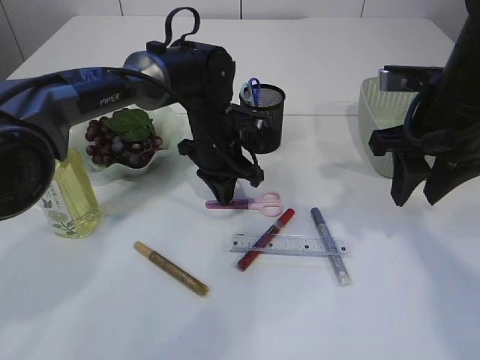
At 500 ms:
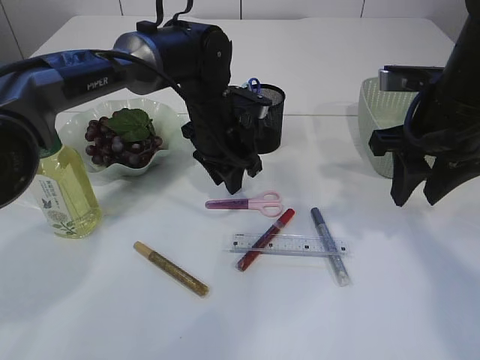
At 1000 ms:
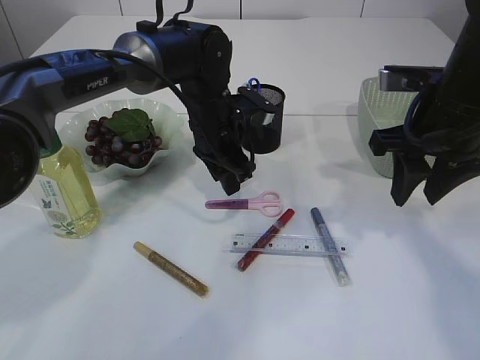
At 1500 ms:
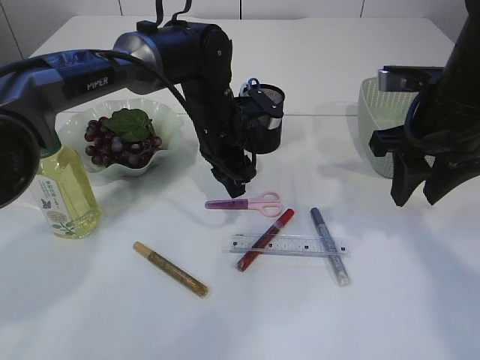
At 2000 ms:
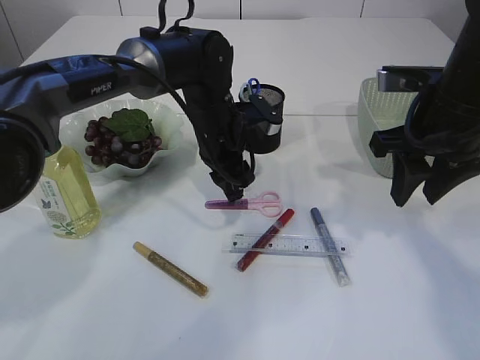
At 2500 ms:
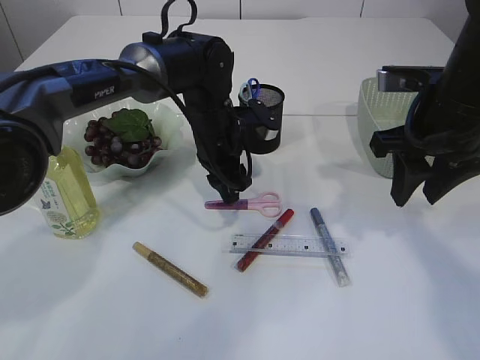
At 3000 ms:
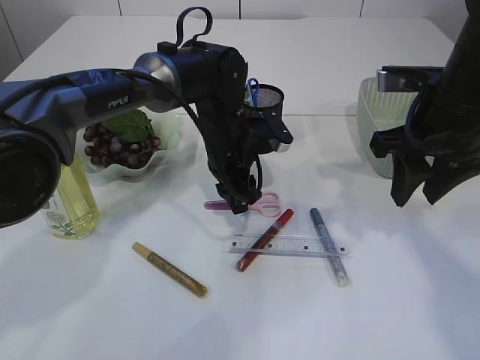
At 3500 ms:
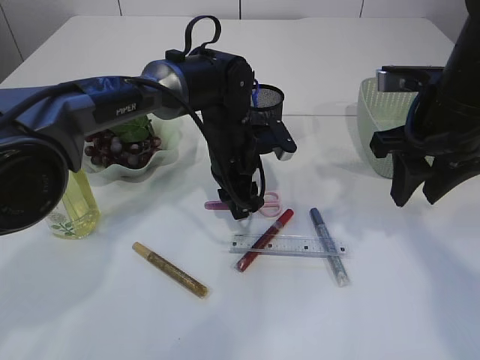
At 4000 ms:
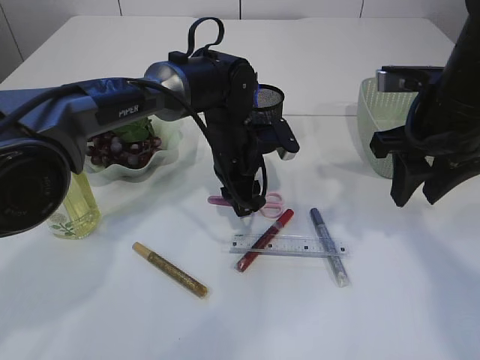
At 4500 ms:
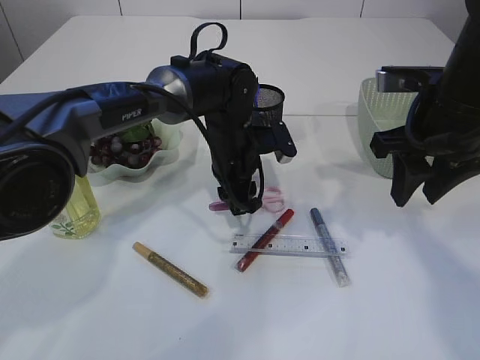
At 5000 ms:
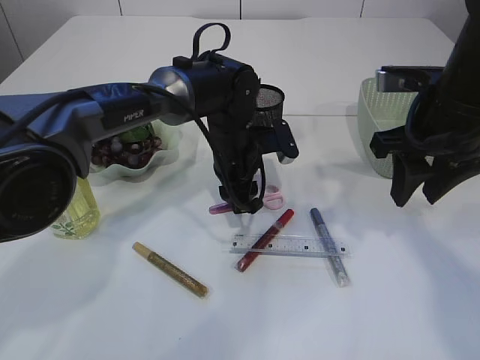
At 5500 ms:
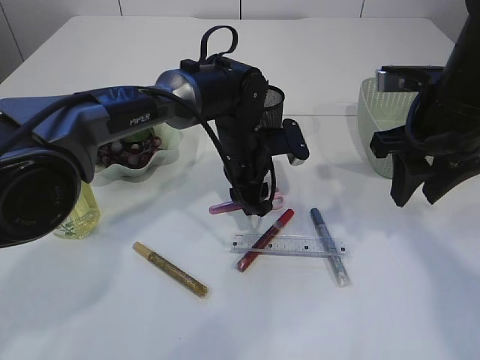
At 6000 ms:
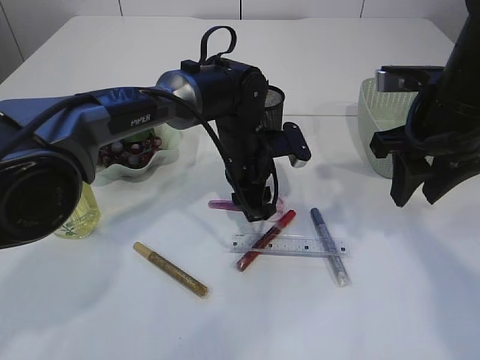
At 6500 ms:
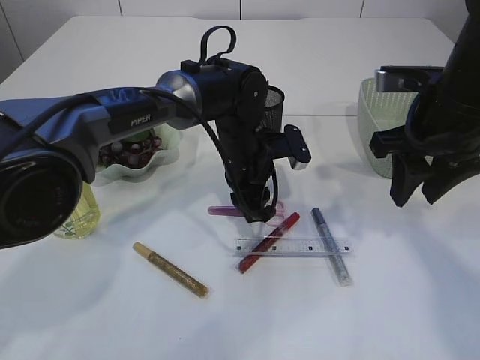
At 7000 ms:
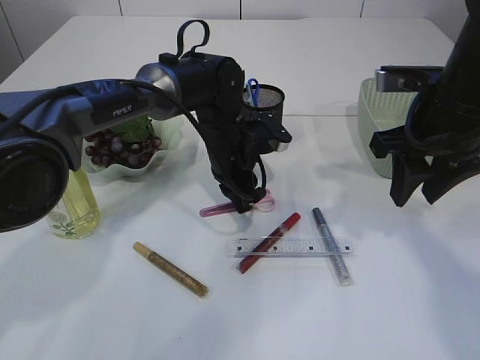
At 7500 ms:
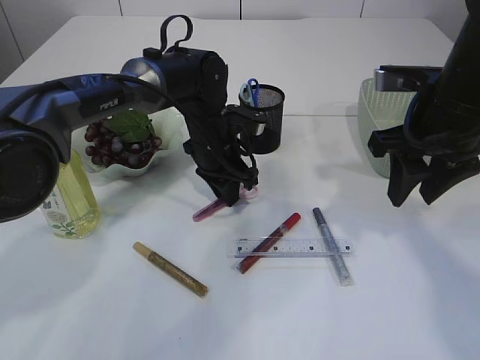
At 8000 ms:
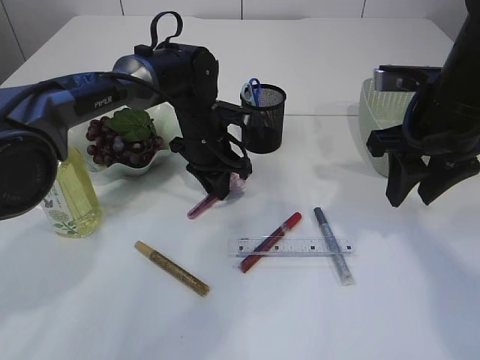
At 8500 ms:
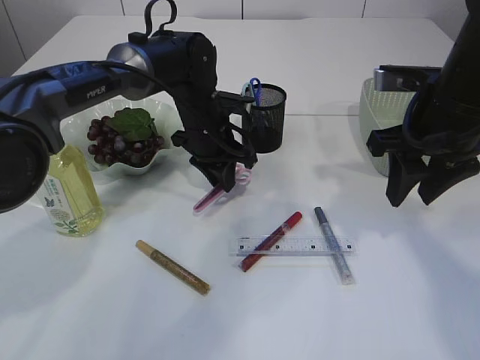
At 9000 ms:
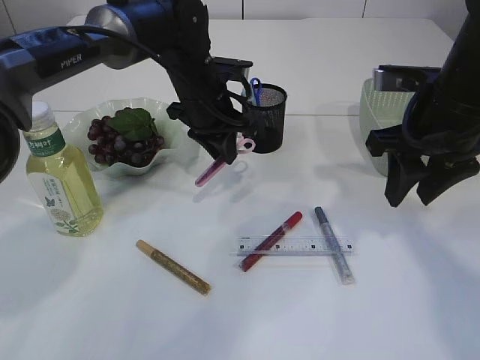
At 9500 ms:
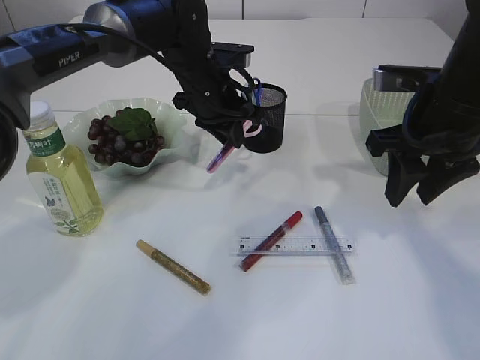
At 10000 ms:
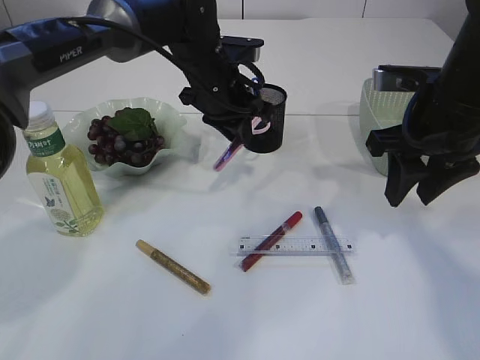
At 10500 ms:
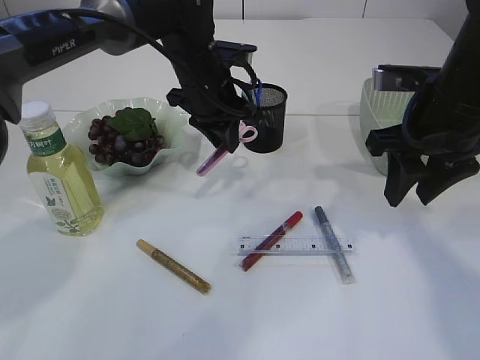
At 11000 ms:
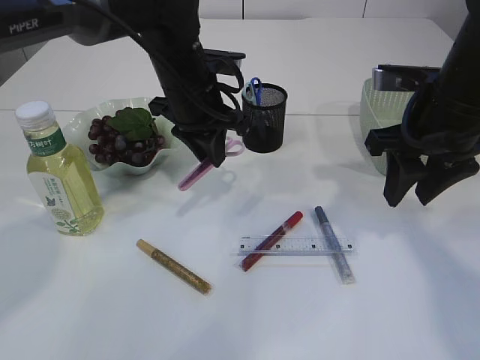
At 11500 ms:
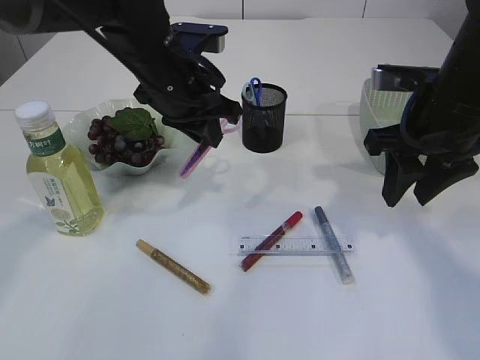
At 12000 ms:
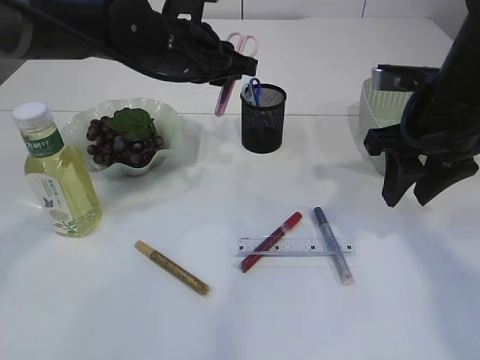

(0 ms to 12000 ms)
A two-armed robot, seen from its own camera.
Step, 0 ms - 8500 ms: pick up the pink scissors.
0 ms - 2000 ms: The left gripper opens its fingers.
2000 ms - 6000 ms: The grippers move only a little.
6000 ms - 8000 ms: The left gripper goes approximately 5 cm to the left, and closes up.
8000 ms - 10000 ms: The left gripper goes roughly 10 cm upward.
10000 ms - 12000 ms: The left gripper shifts by approximately 5 cm.

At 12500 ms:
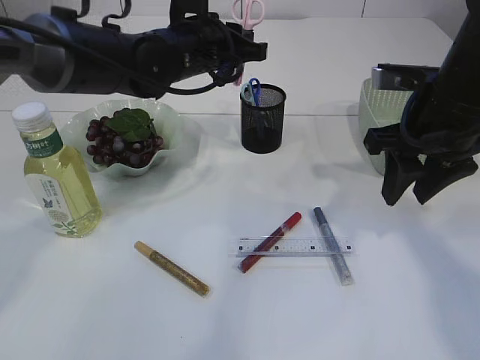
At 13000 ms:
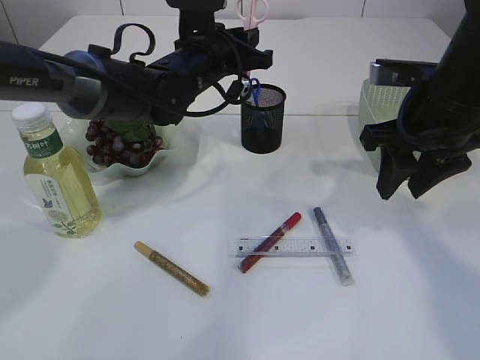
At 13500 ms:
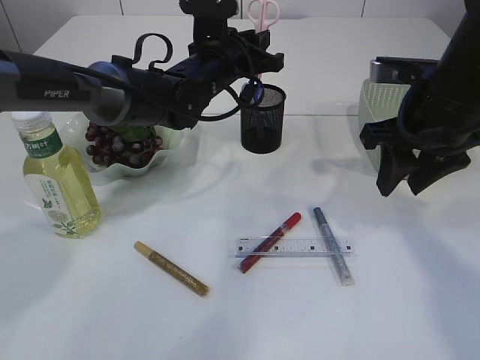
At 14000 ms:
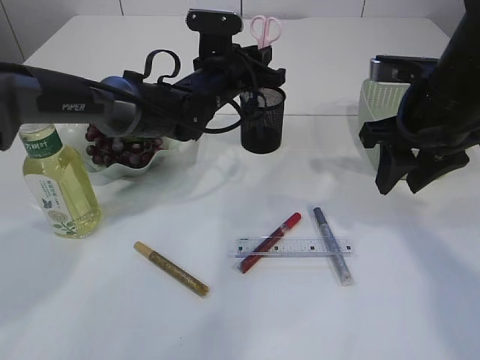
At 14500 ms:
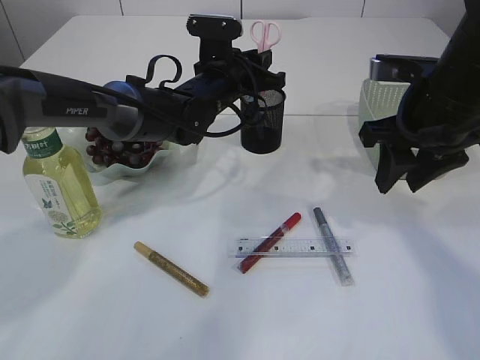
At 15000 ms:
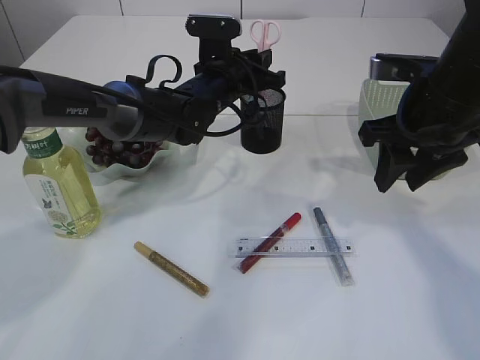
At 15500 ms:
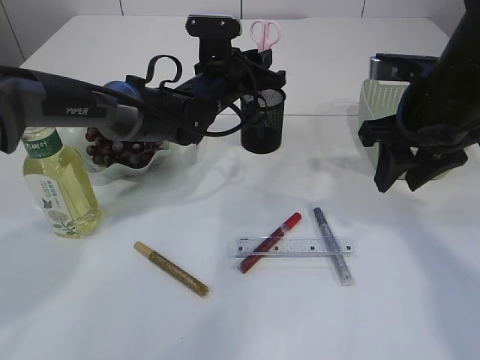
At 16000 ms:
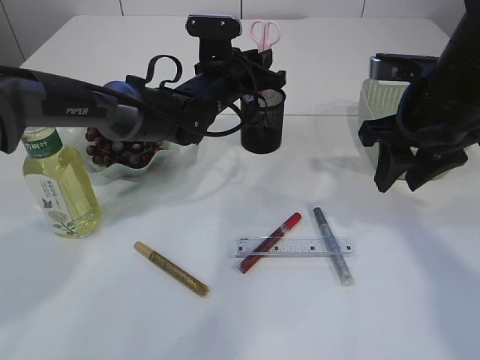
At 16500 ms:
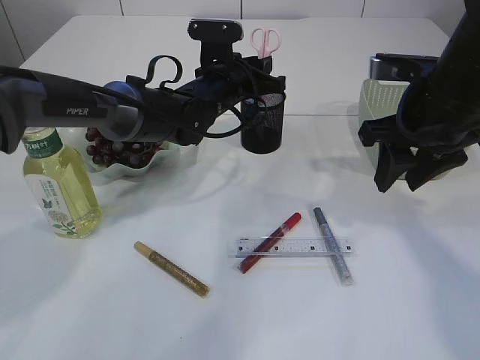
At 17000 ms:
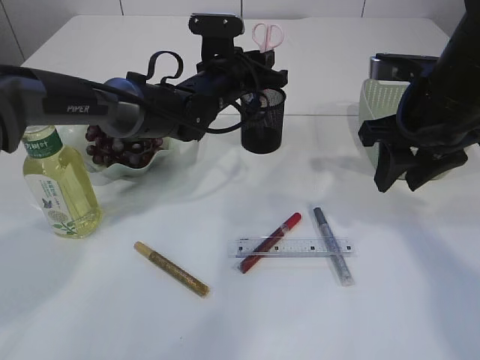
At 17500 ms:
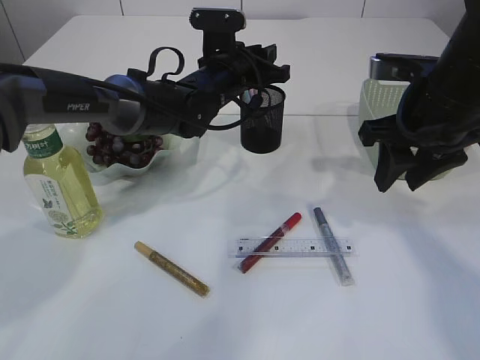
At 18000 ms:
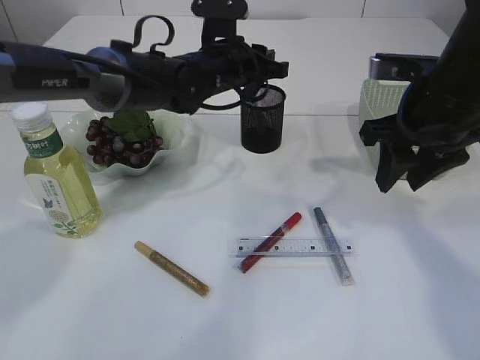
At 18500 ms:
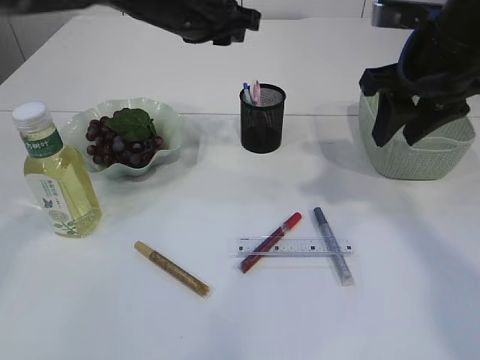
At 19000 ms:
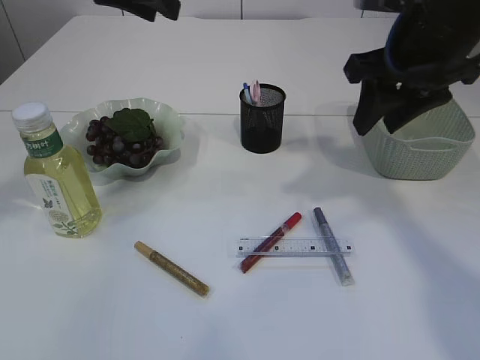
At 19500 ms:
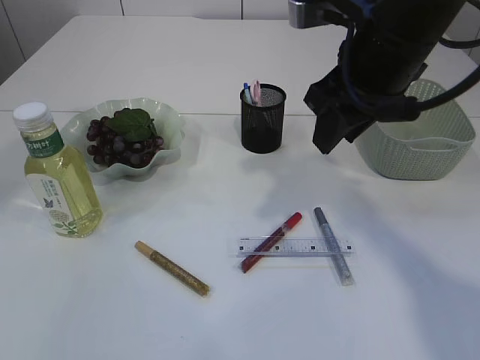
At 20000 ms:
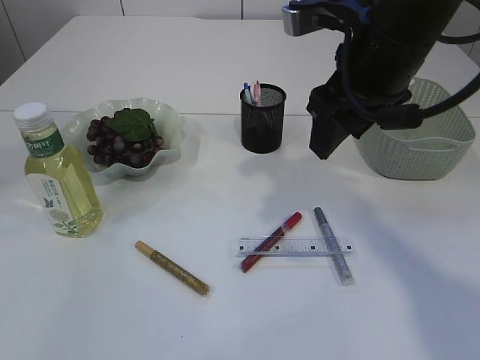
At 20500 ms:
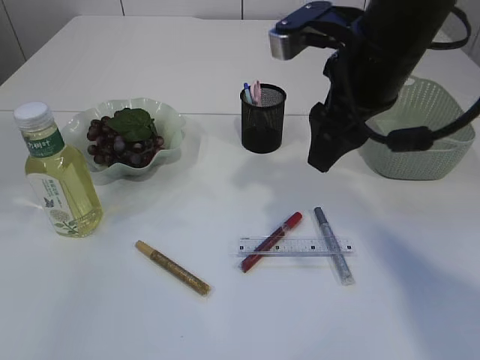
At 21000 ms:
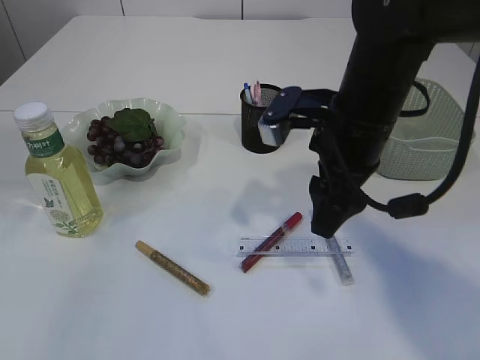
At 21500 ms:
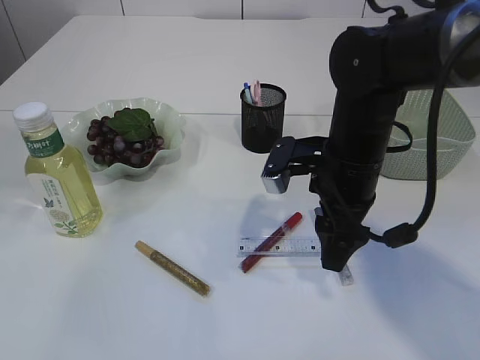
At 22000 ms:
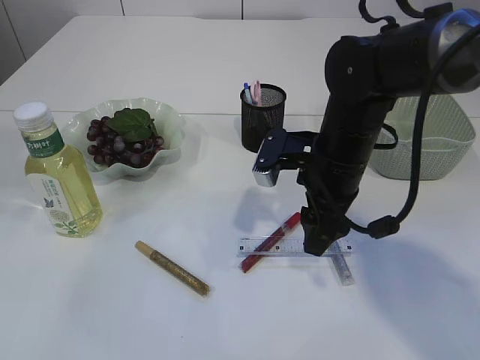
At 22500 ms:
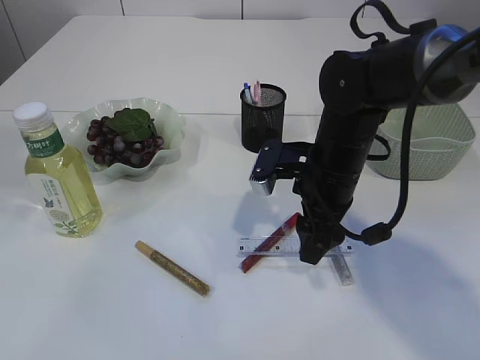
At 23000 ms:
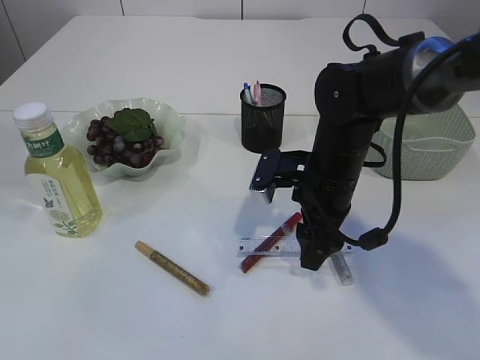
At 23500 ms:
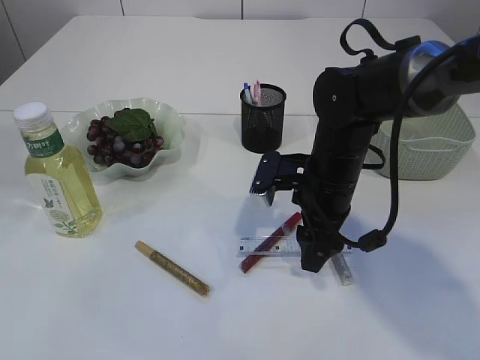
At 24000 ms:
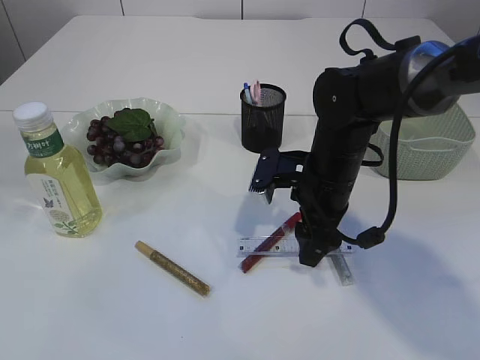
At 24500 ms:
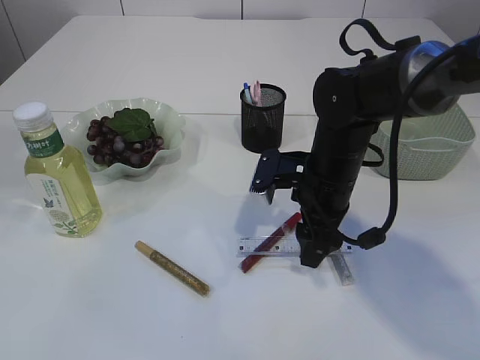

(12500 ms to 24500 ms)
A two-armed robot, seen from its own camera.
Step, 12500 ms - 18000 ms: Place the pink scissors into the pen holder.
12500 ms - 14500 ms: The left gripper travels downward by about 5 cm.
14500 ms - 16500 ms: Both grippers stay about where they are.
16500 ms - 18500 ms: The left gripper moves upward, some 10 cm.
18500 ms - 20500 ms: The right gripper is displaced to the left by some 5 cm; the left gripper shifts some 35 cm upward, backward and to the left.
20500 ms - 22500 ms: The right gripper goes some 15 cm downward.
22500 ms - 24500 ms: There are only small adjustments of the grippers.

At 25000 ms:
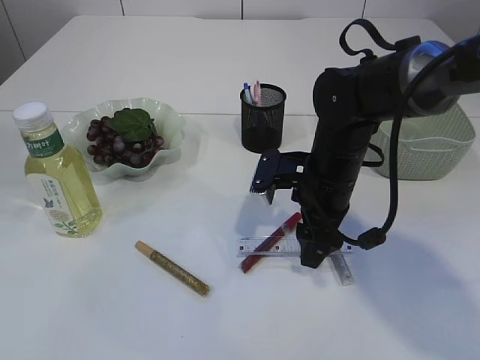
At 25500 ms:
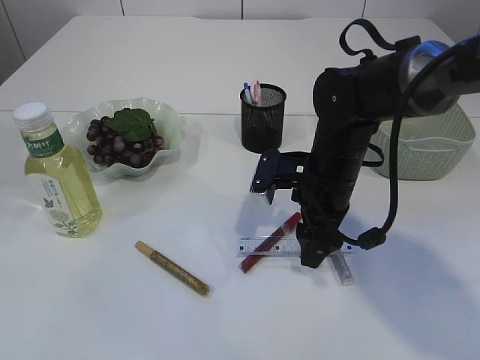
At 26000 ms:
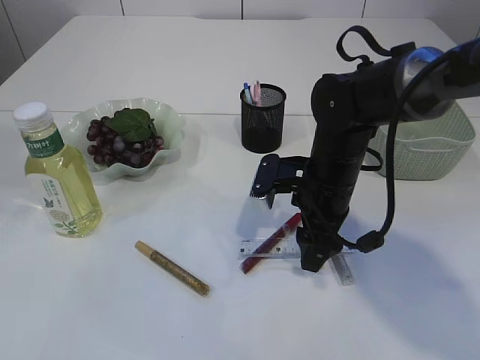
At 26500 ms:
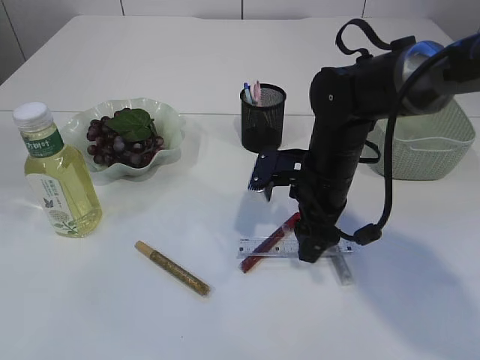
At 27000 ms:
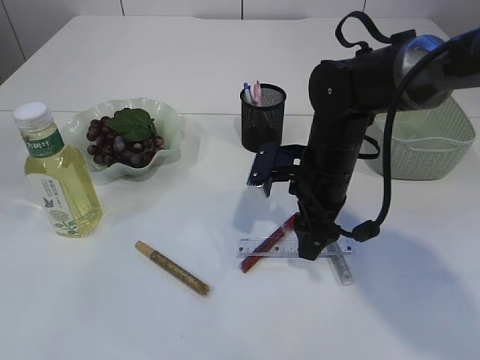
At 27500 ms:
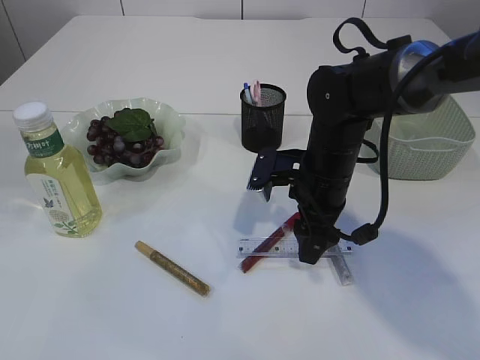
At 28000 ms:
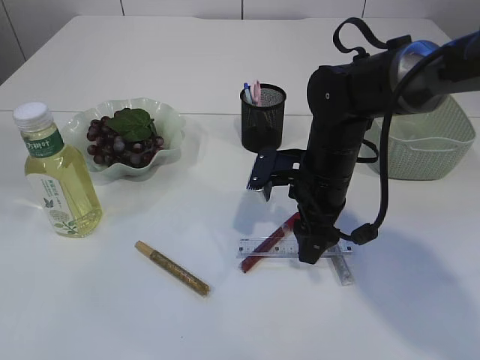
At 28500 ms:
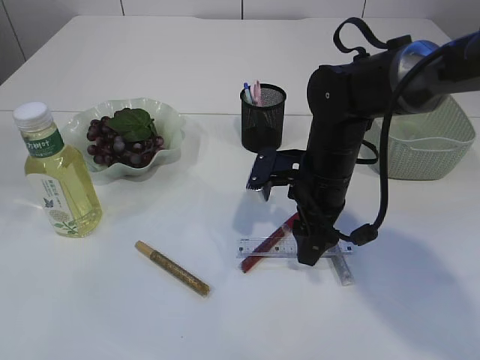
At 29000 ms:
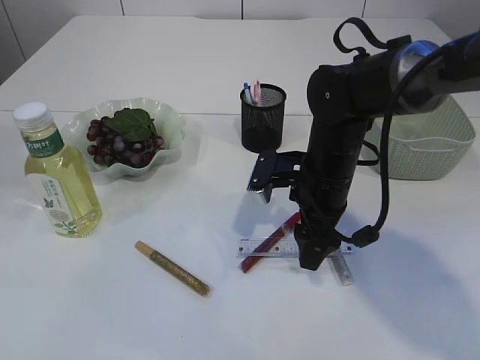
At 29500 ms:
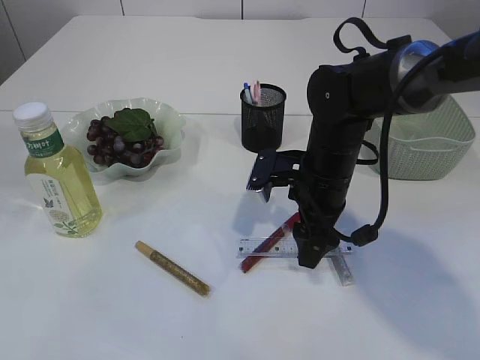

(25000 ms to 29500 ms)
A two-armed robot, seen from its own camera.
25000 ms - 29500 ms: The two grippers keep their place.
